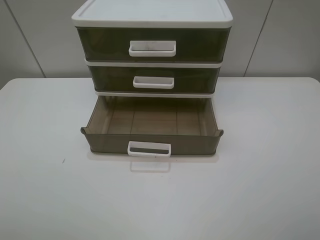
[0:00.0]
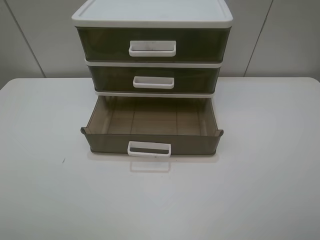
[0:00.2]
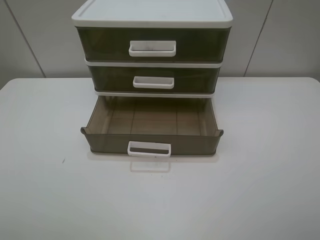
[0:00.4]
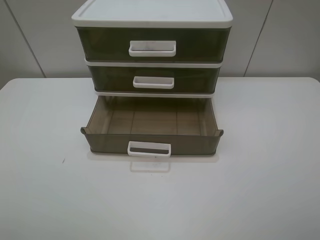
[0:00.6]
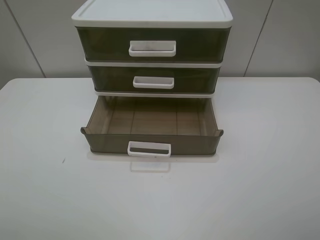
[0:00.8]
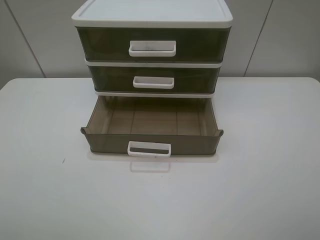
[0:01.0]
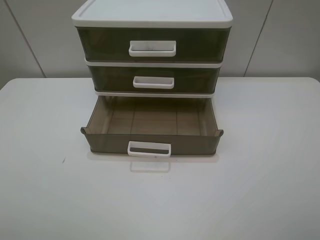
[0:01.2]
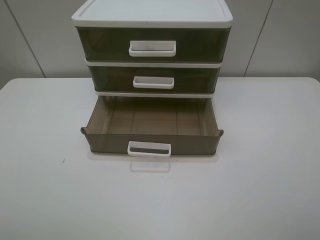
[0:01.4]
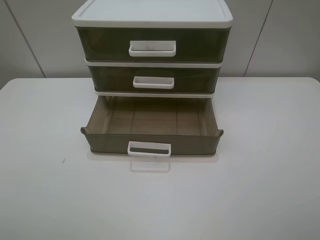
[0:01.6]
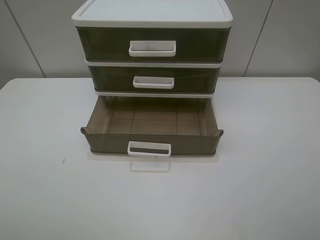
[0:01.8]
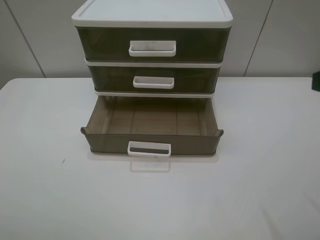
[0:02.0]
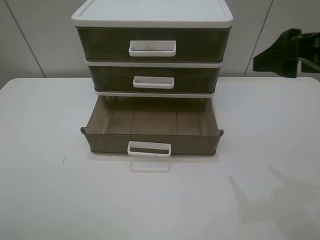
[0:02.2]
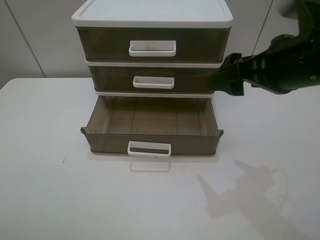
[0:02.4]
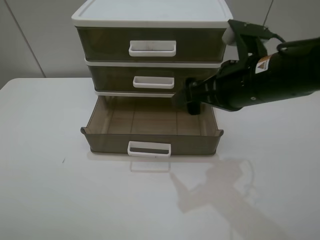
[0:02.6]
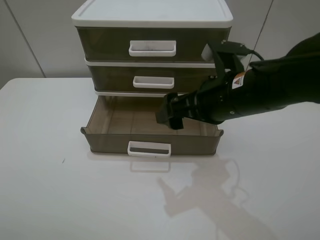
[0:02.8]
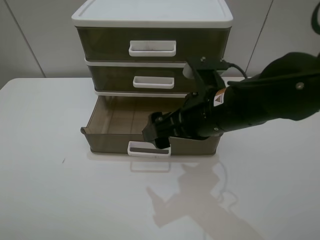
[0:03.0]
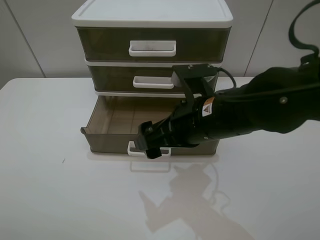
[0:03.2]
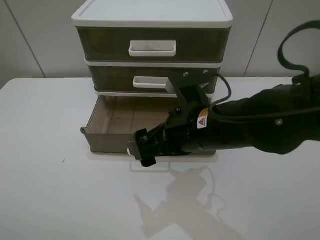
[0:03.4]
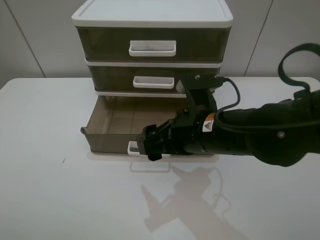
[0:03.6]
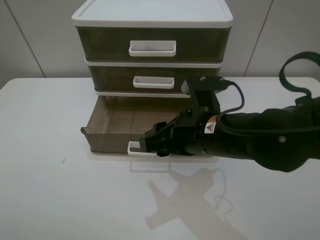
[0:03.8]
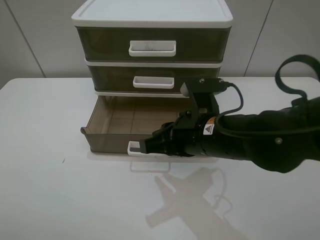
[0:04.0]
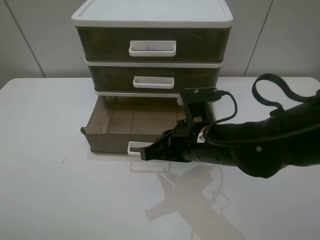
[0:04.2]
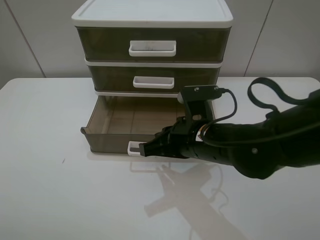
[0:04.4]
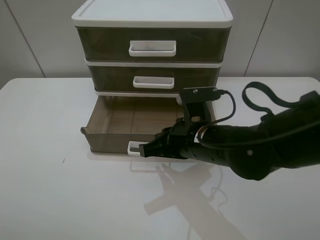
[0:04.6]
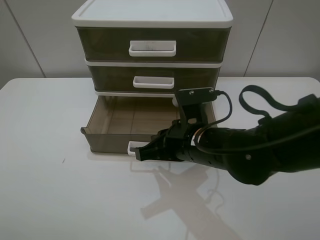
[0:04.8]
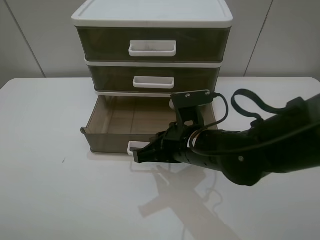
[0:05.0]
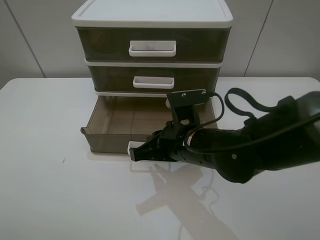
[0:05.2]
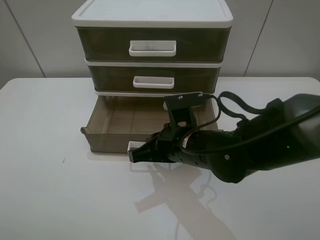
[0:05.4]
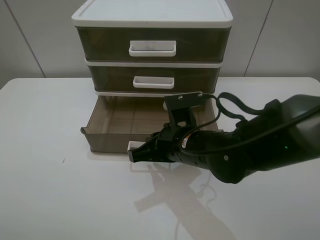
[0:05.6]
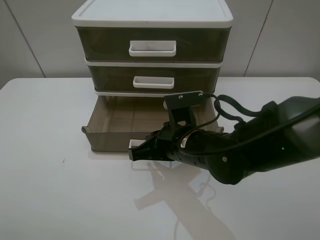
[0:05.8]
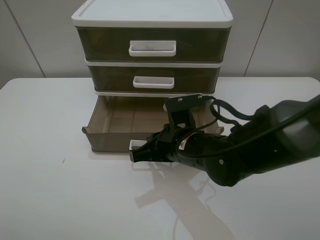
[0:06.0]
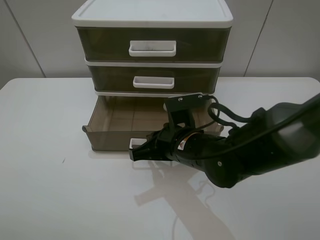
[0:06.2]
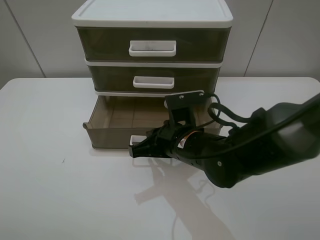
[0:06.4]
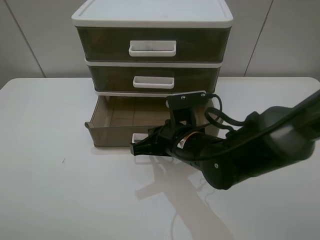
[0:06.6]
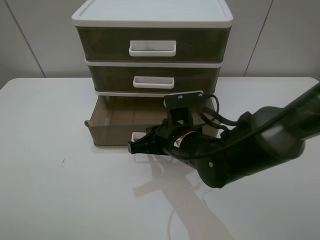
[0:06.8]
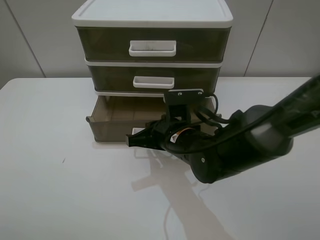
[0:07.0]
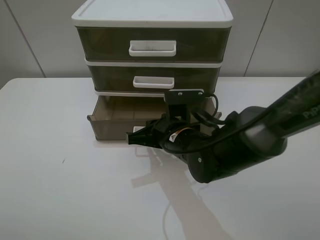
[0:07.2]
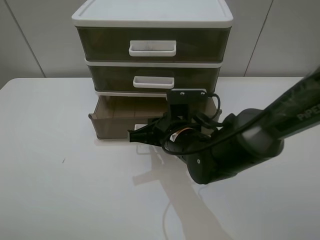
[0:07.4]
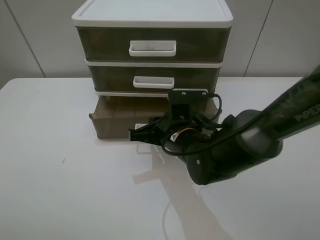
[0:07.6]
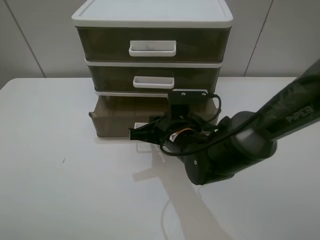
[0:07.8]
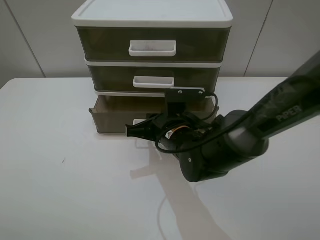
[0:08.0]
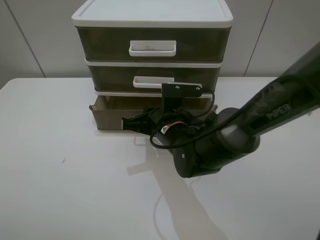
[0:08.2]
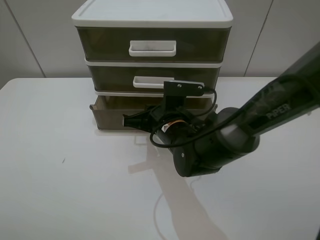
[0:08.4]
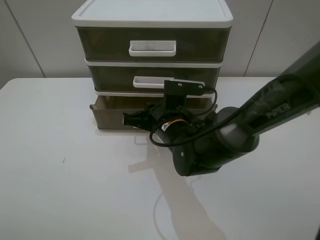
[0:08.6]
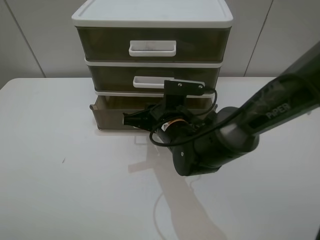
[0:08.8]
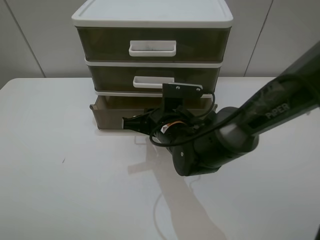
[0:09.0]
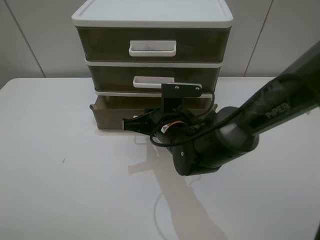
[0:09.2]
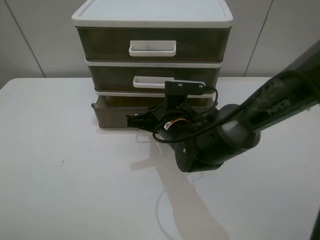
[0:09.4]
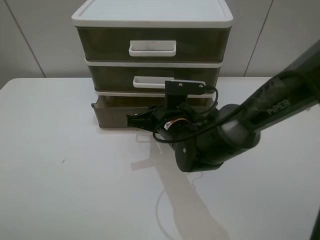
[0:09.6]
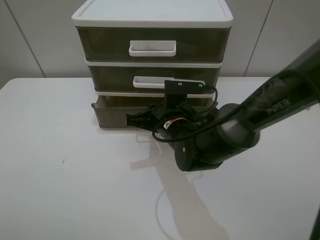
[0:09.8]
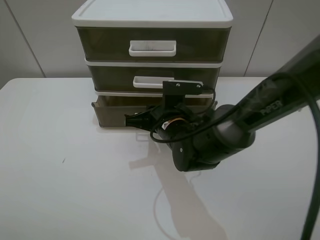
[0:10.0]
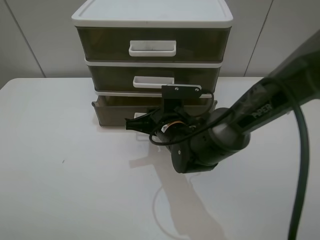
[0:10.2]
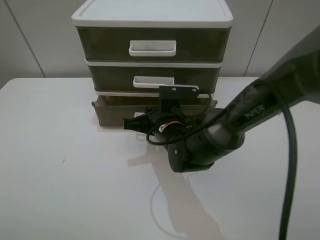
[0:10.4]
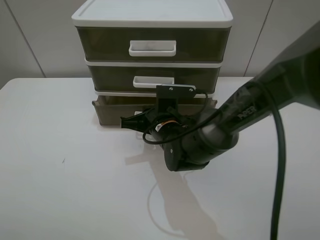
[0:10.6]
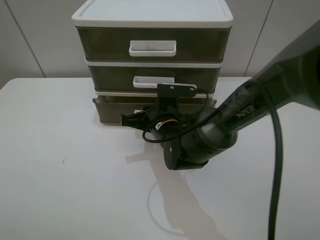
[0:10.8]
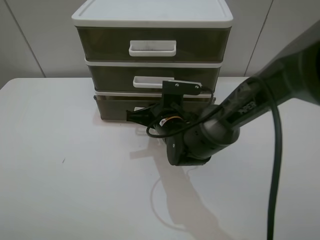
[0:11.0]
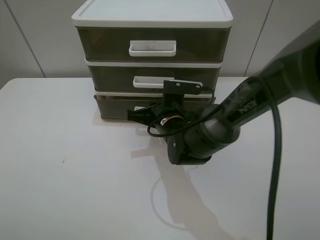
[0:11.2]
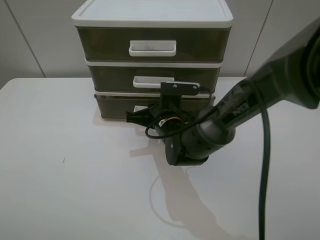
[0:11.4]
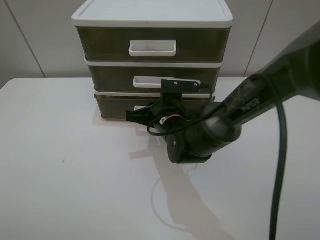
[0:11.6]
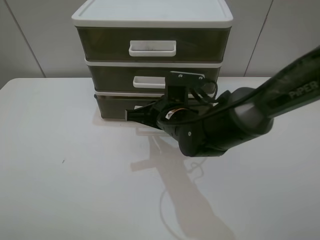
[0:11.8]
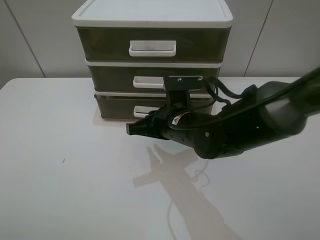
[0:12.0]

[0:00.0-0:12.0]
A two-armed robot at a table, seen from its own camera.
Task of the whole recording: close the bottom drawer.
Step, 0:00.0 to 0:05.6: Use the right gripper to contact the bottom layer of the storage cabinet.
Step, 0:05.8 to 0:11.4: Push the bottom drawer closed.
0:00.0 to 0:01.6: Both grippers stay put.
0:01.6 to 0:03.0: The right gripper goes approximately 30 cm to the left, forward and downward.
0:03.0 to 0:04.4: The right gripper travels downward by approximately 5 cm, and closes its fingers.
0:04.4 to 0:06.0: The grippers make only small movements.
0:06.0 to 0:07.6: The grippers make only small movements.
0:07.6 to 0:10.4: The grippers stay close to where they were, moving slightly.
0:10.4 to 0:12.0: The right gripper changes place by some 5 cm.

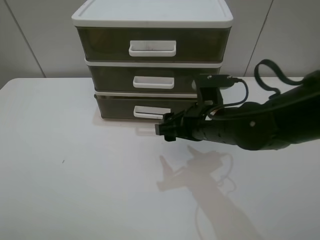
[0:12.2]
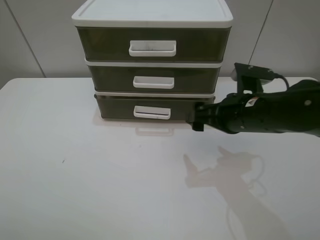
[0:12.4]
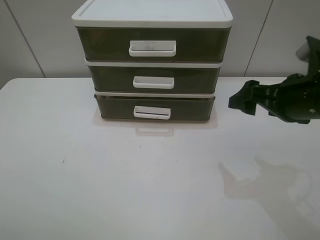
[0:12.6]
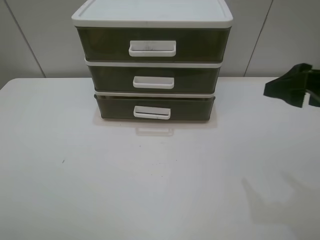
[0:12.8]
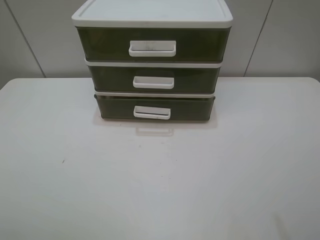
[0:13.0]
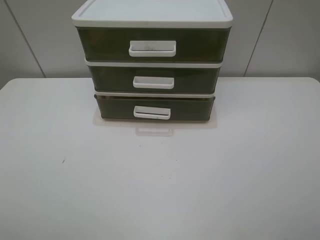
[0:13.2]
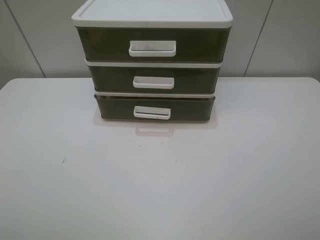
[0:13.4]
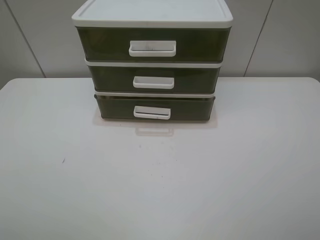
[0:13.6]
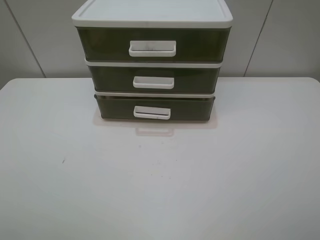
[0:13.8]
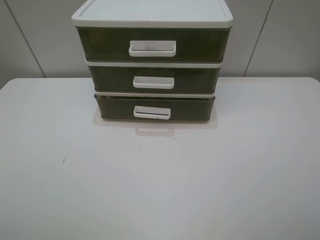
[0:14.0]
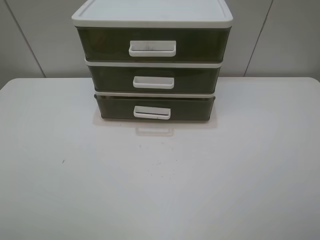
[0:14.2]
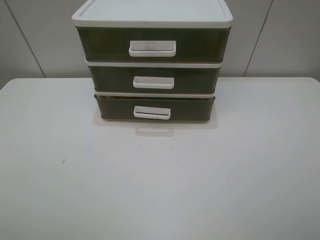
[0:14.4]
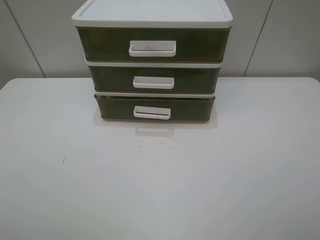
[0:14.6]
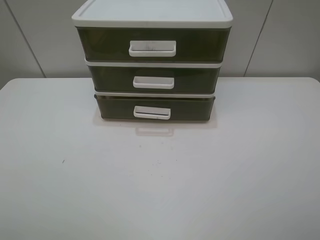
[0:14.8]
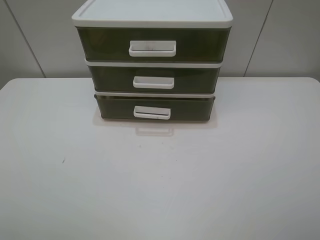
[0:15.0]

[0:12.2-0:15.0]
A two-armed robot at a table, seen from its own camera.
Task of the whole recording: close the bottom drawer.
0:12.2 to 0:13.6: The right gripper is displaced backward, to the right and upward by roughly 35 cm.
